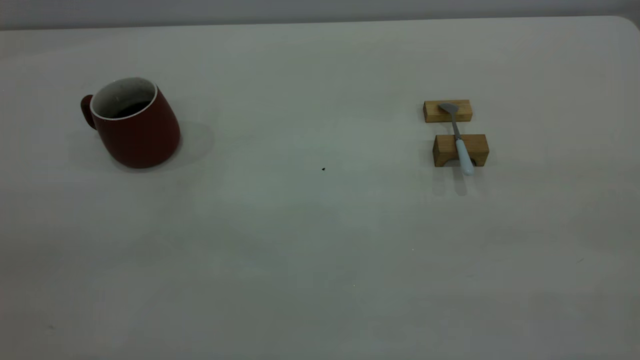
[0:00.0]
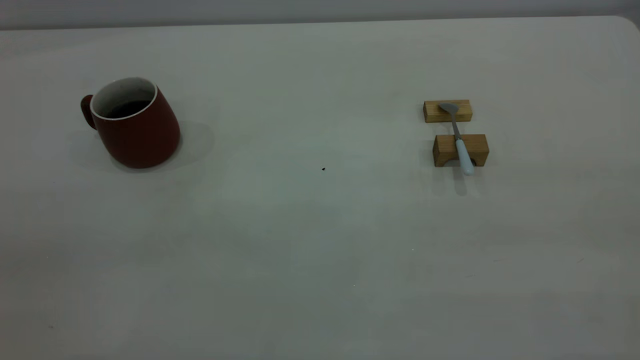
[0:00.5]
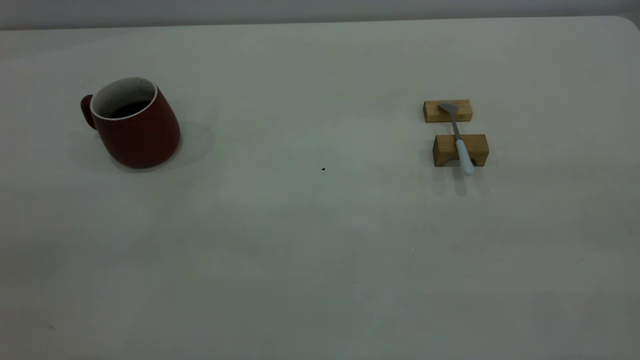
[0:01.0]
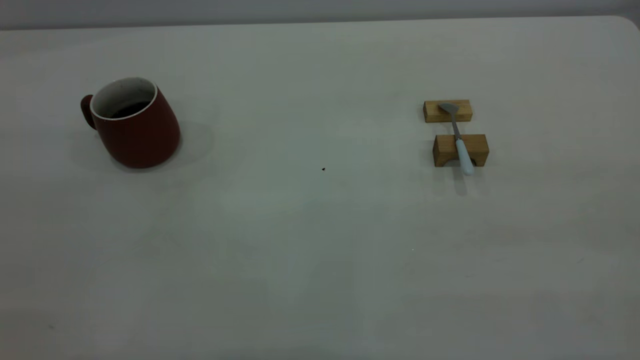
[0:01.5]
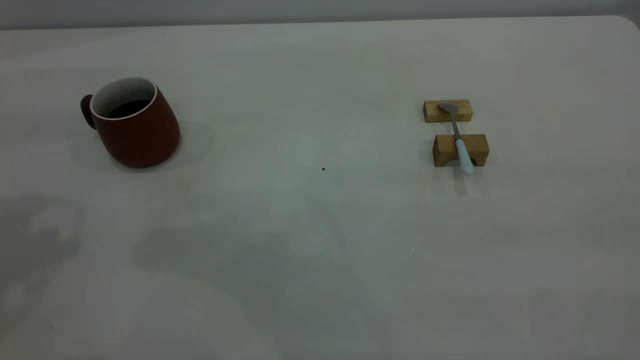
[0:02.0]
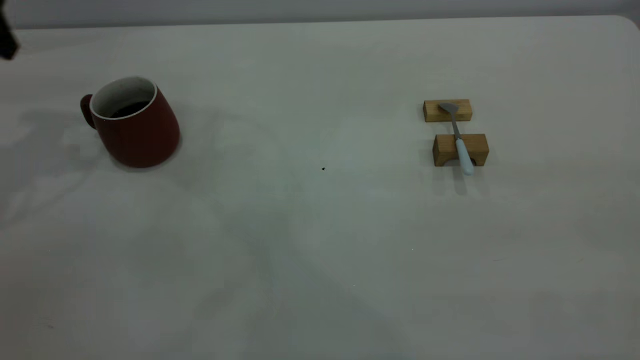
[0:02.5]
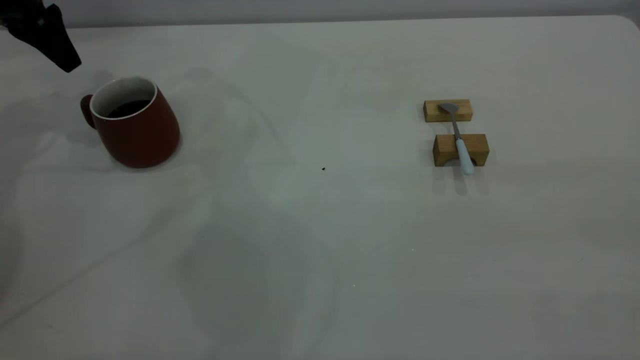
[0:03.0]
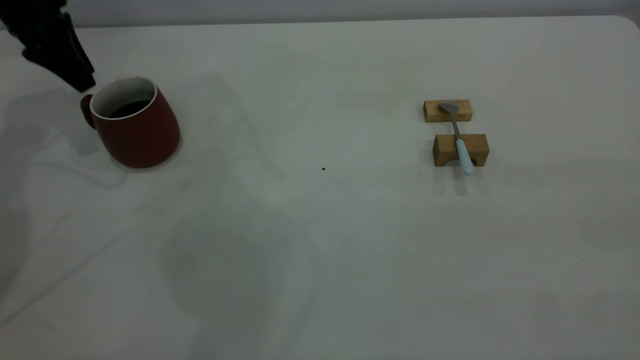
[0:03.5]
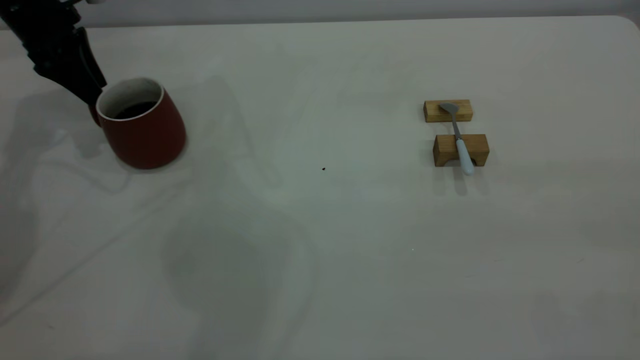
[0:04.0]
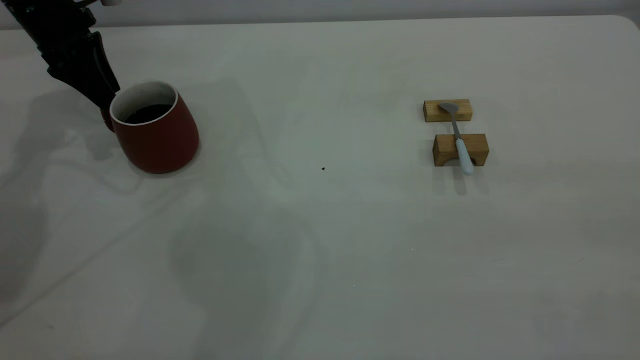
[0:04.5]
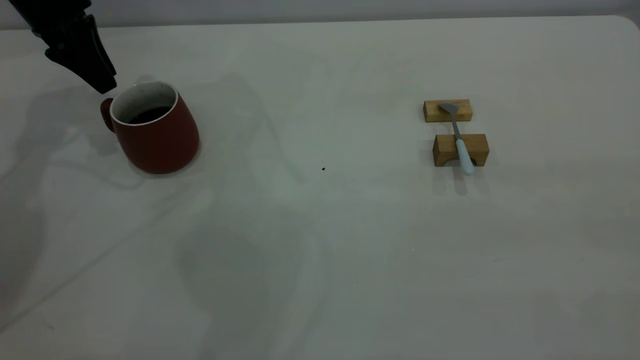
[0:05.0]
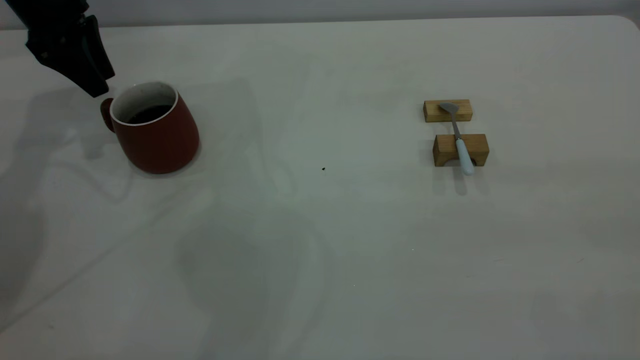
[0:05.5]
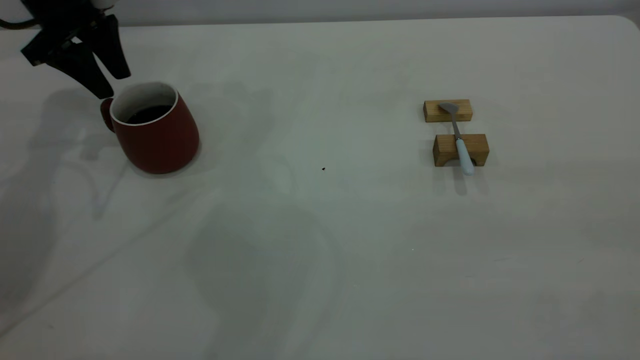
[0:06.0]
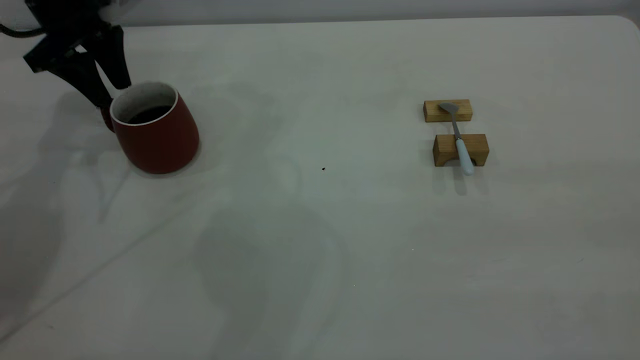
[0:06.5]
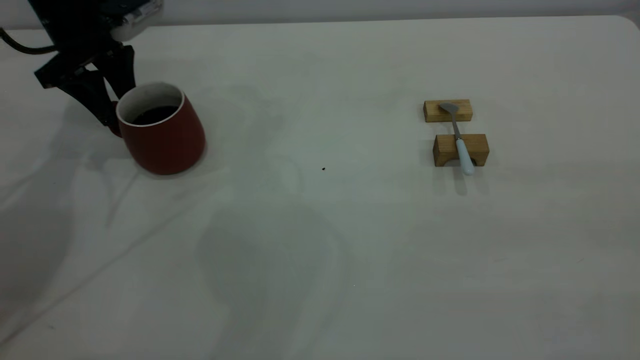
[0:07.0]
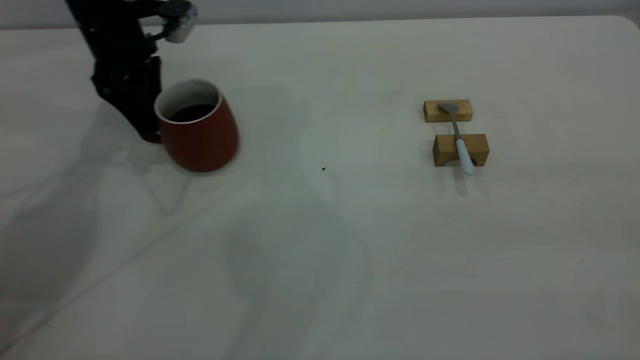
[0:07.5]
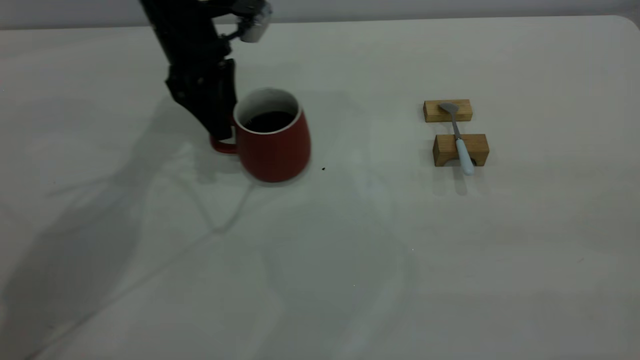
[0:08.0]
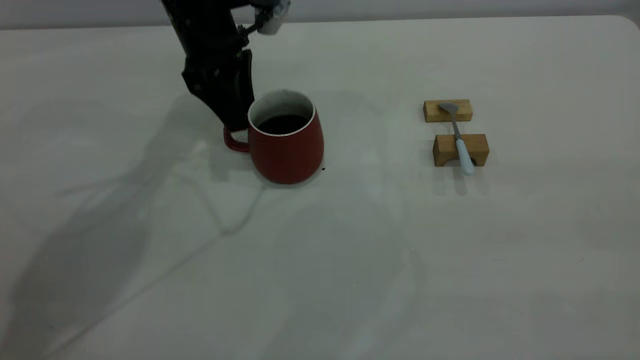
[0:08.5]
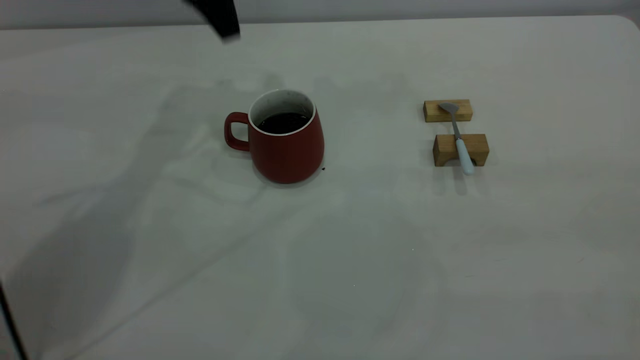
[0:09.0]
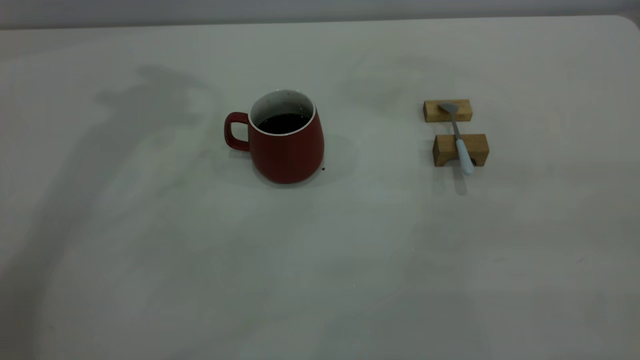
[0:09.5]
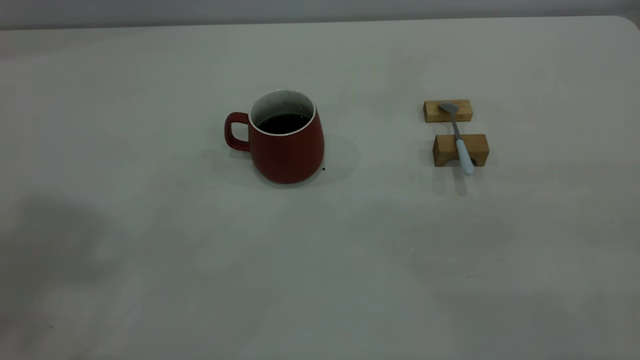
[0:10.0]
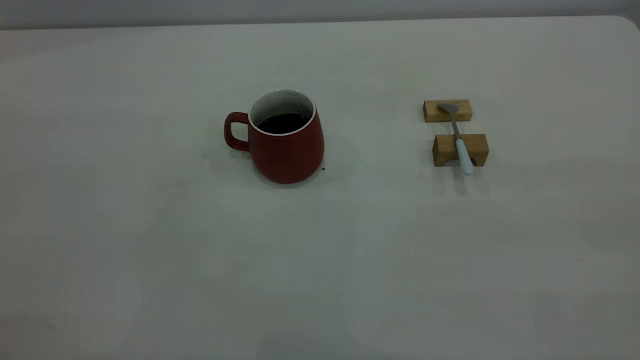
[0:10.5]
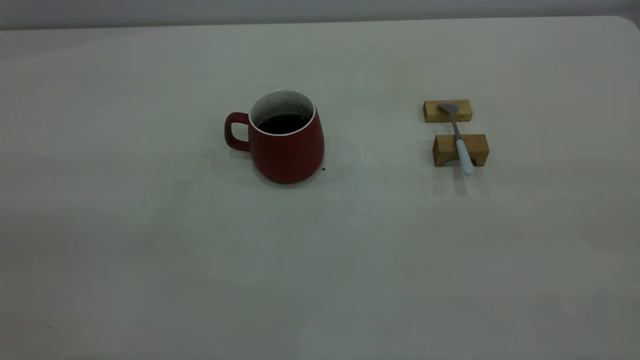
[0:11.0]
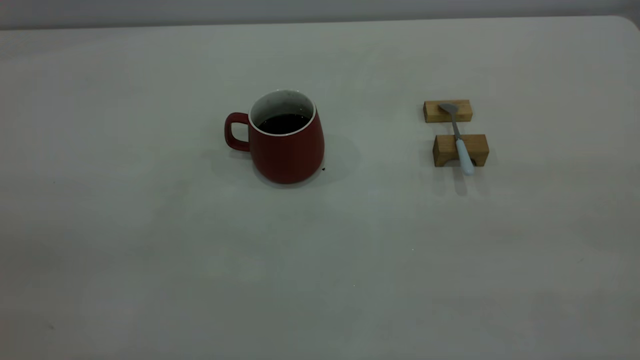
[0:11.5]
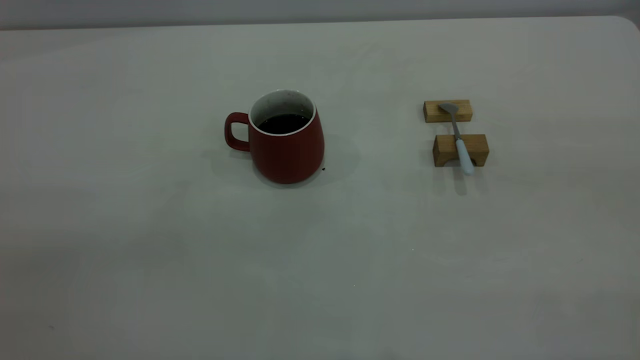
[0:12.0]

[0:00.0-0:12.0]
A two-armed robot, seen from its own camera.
Step, 0:00.0 to 0:08.5: Move the cup with coffee to the center of view.
0:02.0 to 0:04.0: The left gripper goes approximately 30 cm forward and downward.
0:06.0 to 0:08.0: The left gripper heads to the right, covering approximately 15 cm.
0:08.0 to 0:10.0: The left gripper travels upward and backward by about 50 cm.

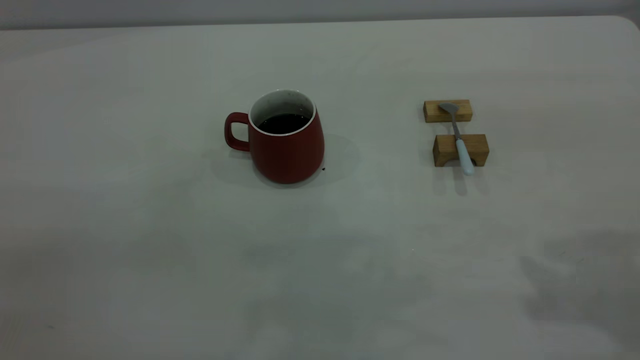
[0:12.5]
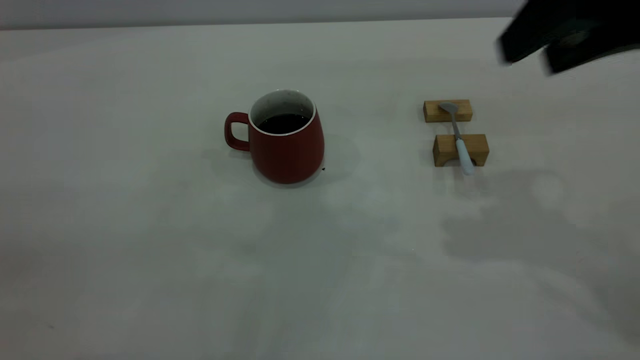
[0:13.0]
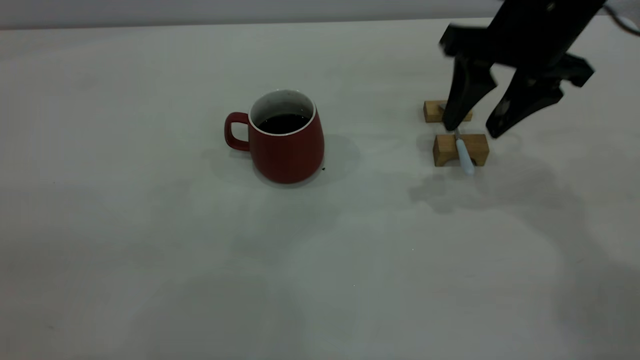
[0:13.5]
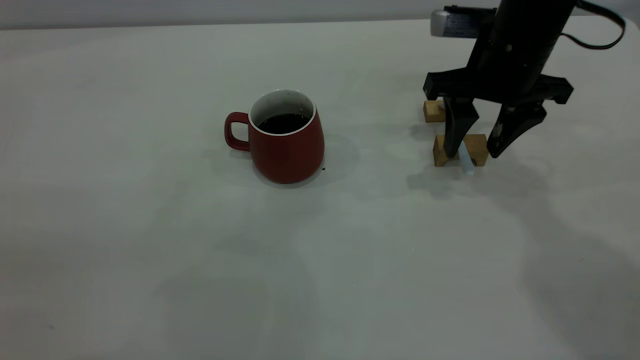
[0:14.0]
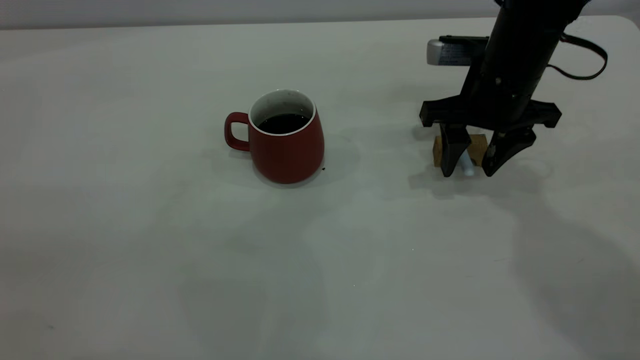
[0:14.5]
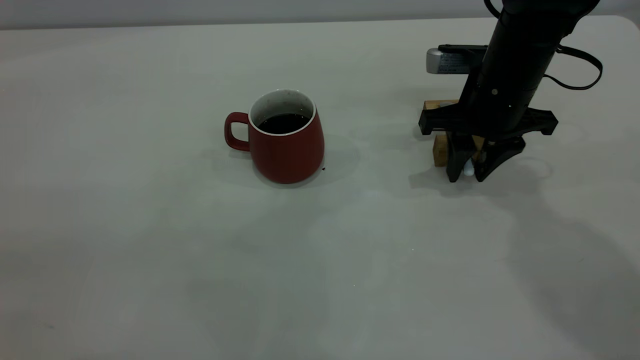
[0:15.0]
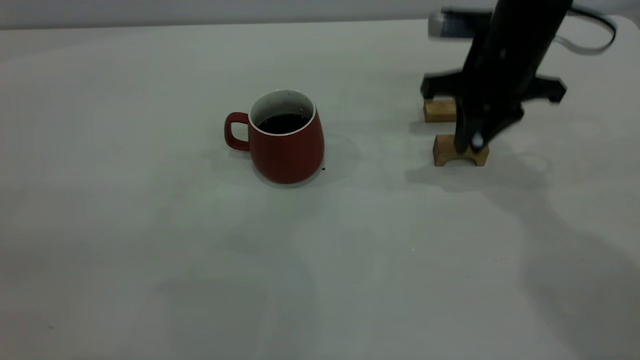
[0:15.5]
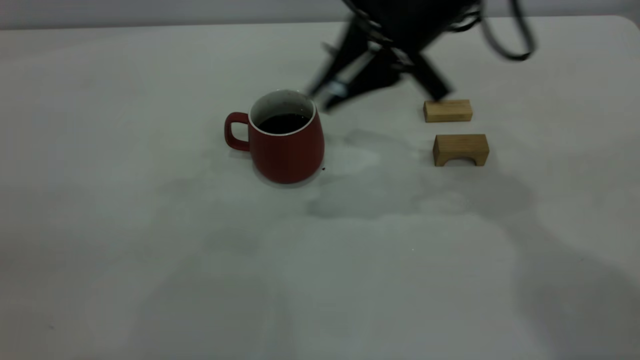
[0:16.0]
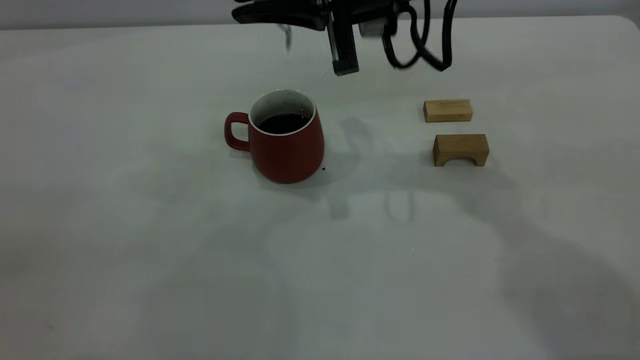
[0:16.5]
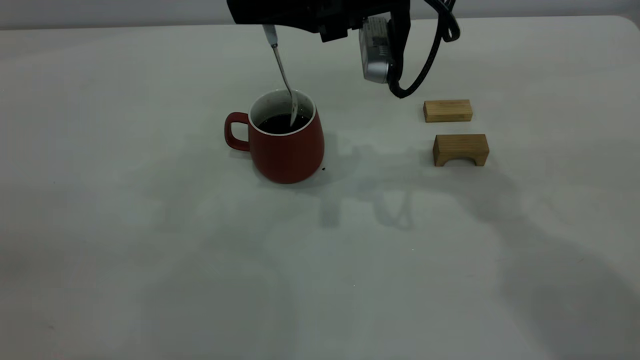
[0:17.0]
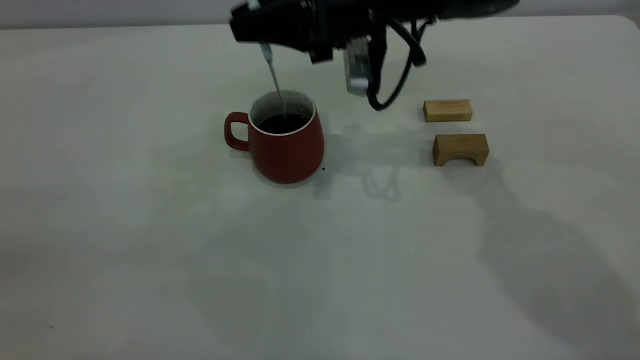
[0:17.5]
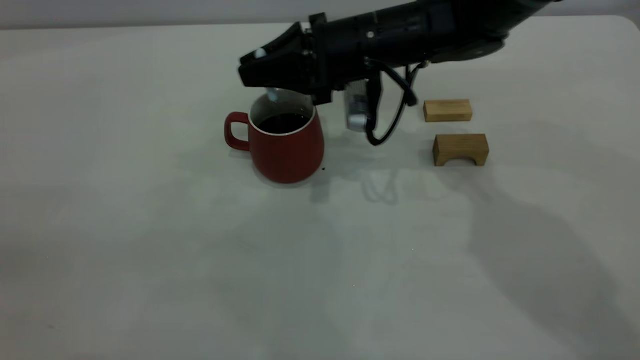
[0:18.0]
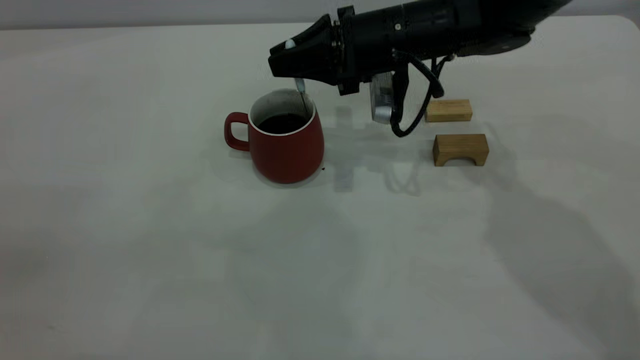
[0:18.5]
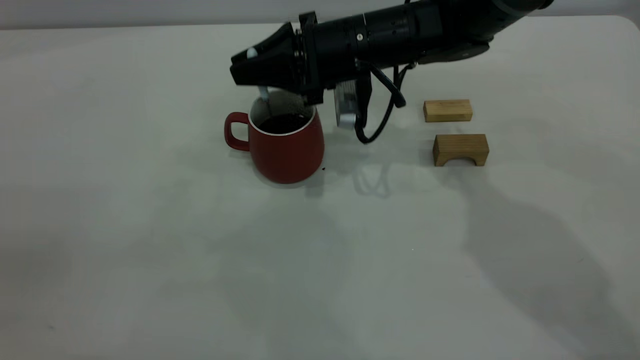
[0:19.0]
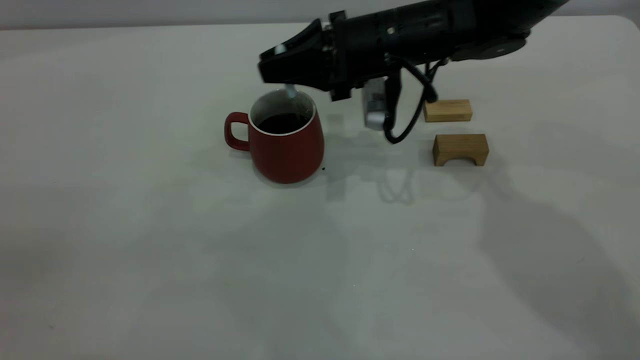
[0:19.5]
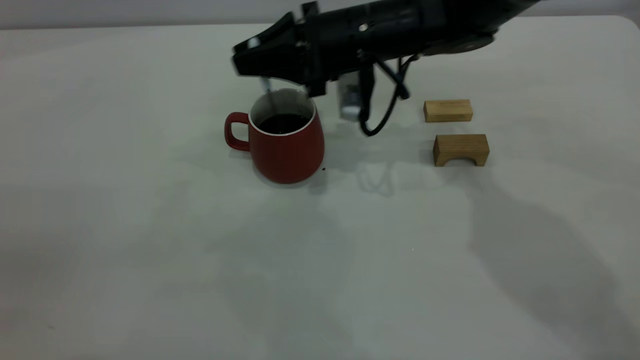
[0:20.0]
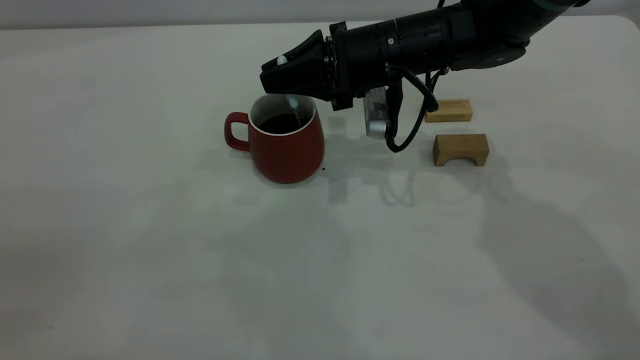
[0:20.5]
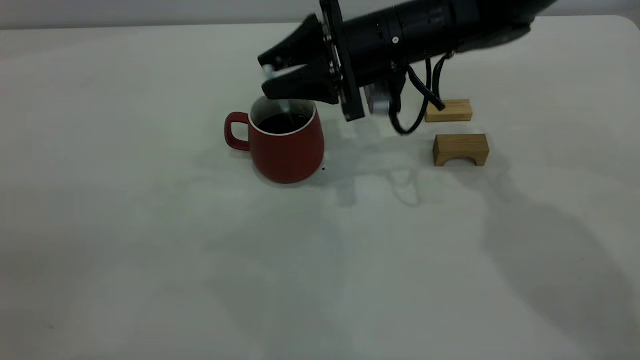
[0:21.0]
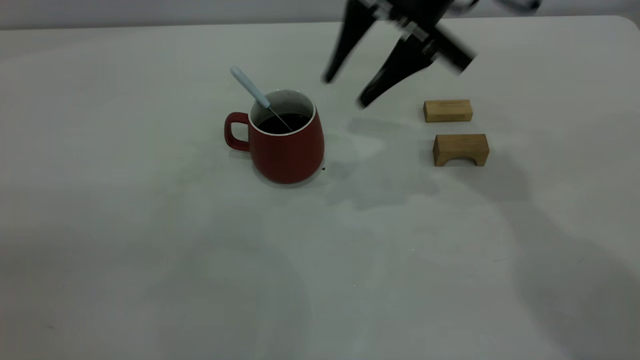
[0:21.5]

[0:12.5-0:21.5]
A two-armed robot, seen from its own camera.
Step, 0:12.5 to 0:15.5: Pick up the spoon.
Step, 0:16.0 to 0:21.0: Stir the coffee in the cup.
0:12.5 to 0:14.5: The right gripper goes some 30 cm downward, forward and to the left.
0:14.5 to 0:17.0: The right gripper moves to the left and upward, some 15 cm, and closes its fingers.
0:17.0 to 0:19.5: The right gripper travels downward by about 10 cm.
0:19.5 to 0:21.5: The right gripper goes approximately 10 cm upward, and opens up.
